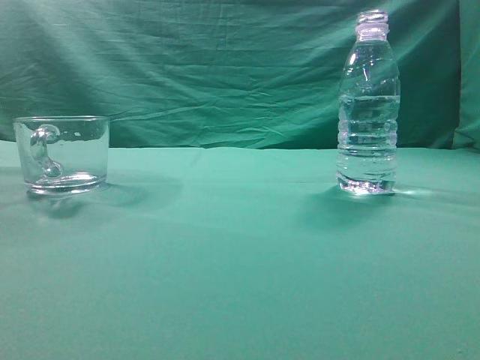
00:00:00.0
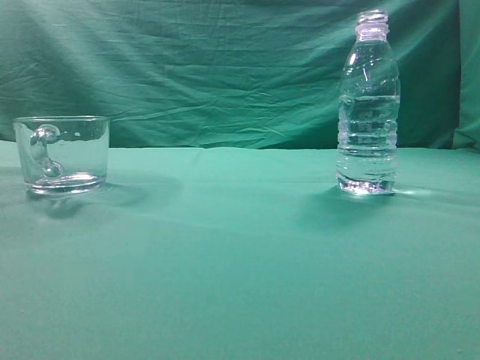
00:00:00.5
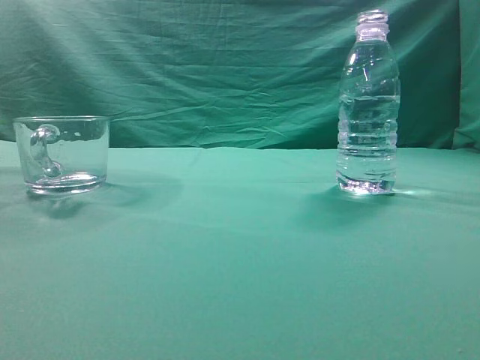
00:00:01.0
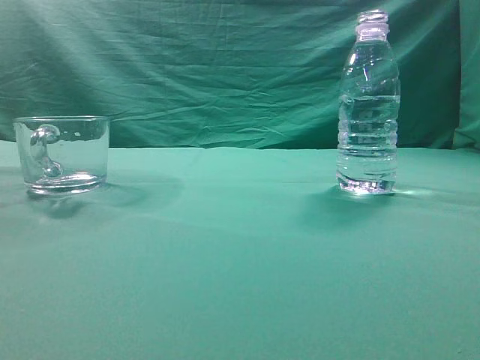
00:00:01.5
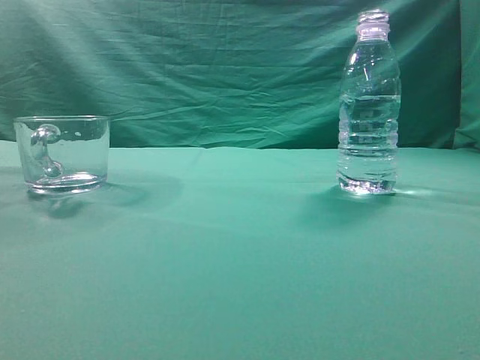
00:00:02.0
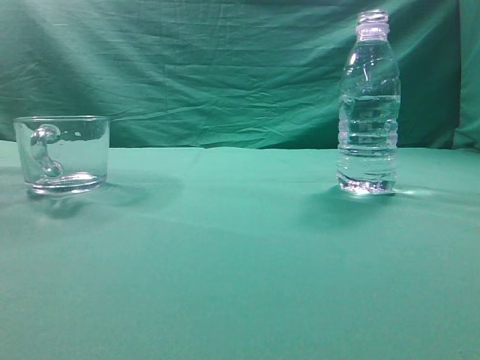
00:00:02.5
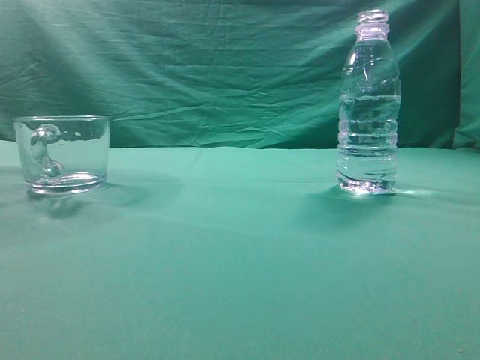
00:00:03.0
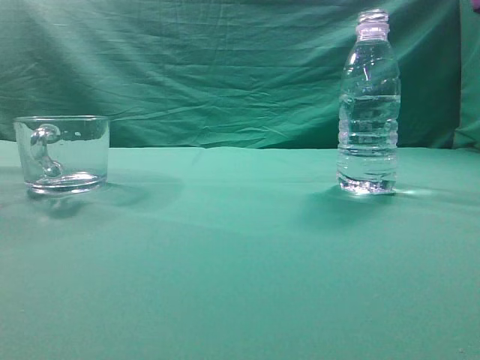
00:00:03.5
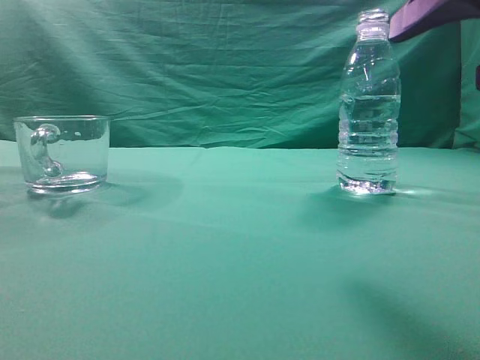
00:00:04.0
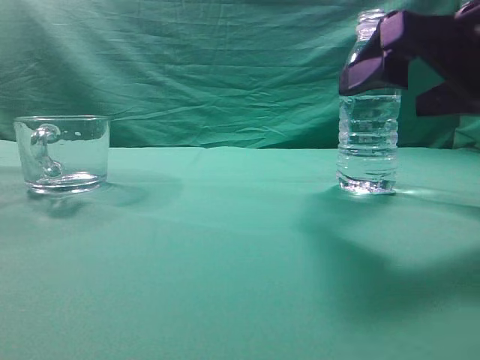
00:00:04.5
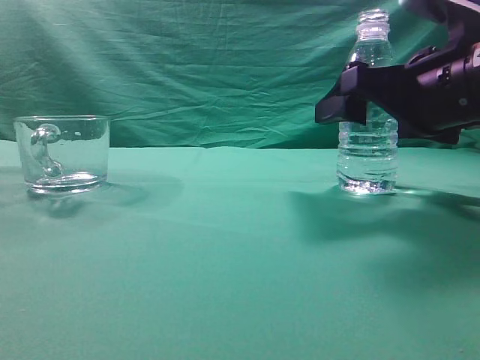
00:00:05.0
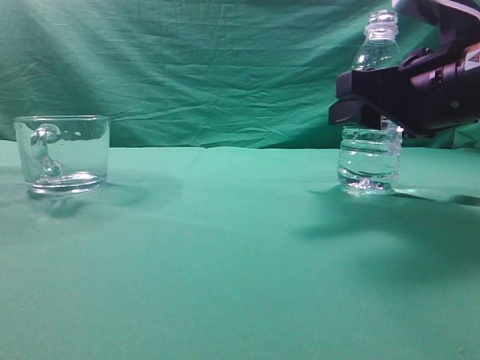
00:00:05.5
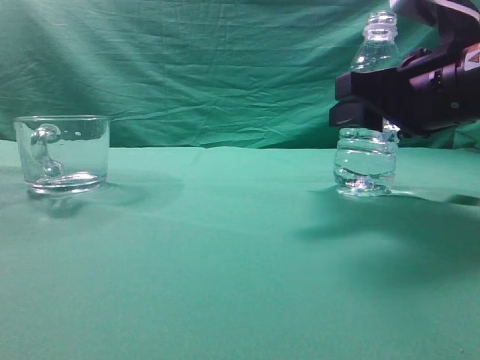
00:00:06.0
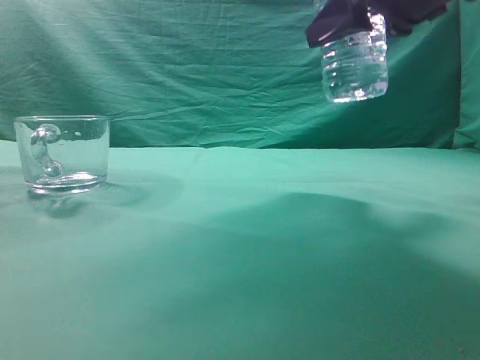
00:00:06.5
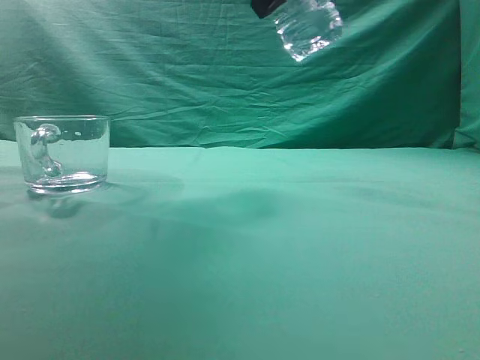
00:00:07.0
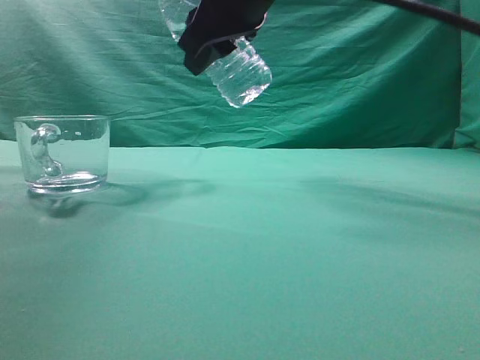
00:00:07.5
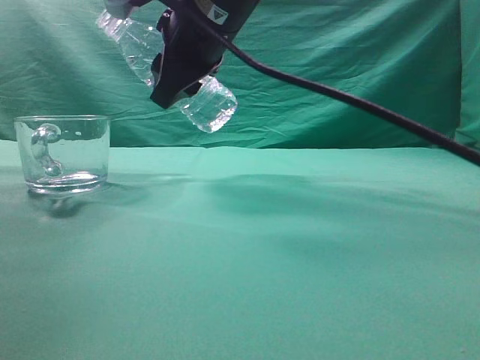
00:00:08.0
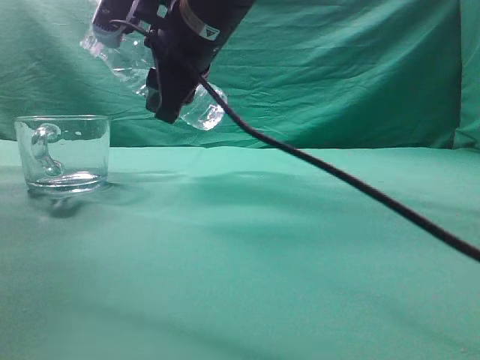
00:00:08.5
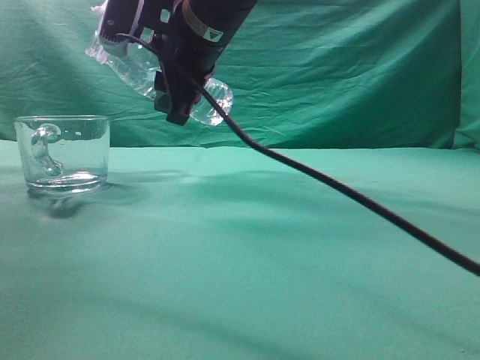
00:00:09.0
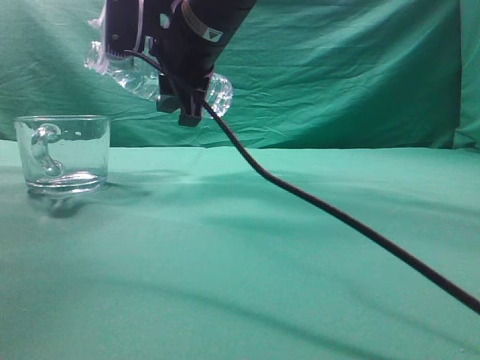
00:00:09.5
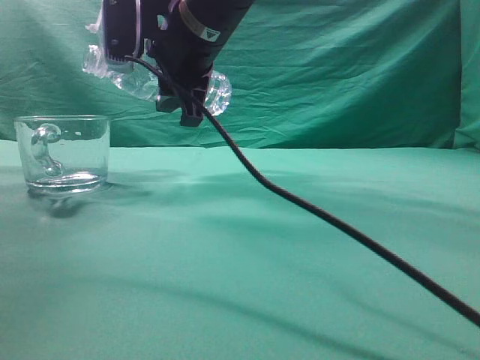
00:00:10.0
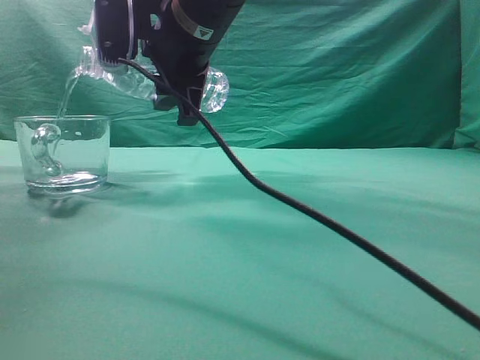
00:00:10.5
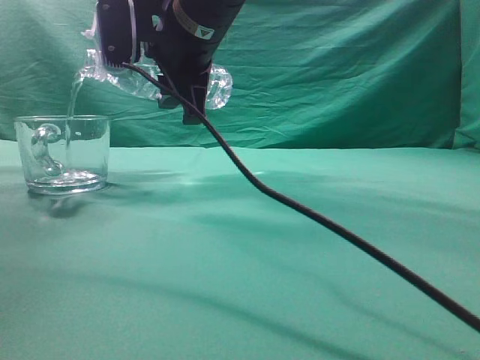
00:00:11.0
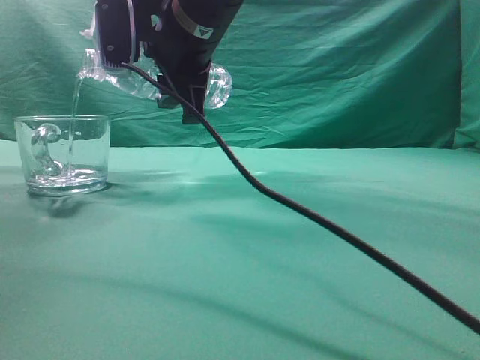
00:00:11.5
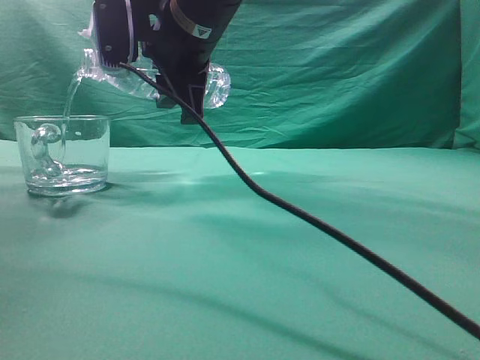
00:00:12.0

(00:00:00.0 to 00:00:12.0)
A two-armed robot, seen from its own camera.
Task of the whole recording: pick up the water bottle and pour the water in it into the glass.
Step, 00:00:00.0 - 00:00:06.0: Grasp the mineral water bottle.
00:00:02.0 - 00:00:04.0: The right gripper shifts about 15 cm forward, to the left and downward, and opens its fingers.
00:00:04.0 - 00:00:06.0: The right gripper heads forward and downward, covering roughly 10 cm, and closes up.
00:00:06.0 - 00:00:08.0: The right gripper goes about 20 cm to the left and upward.
00:00:10.0 - 00:00:12.0: The grippers make only small movements.

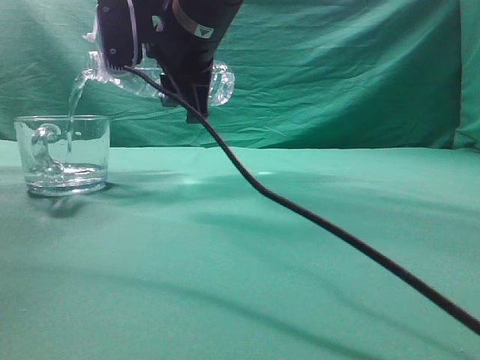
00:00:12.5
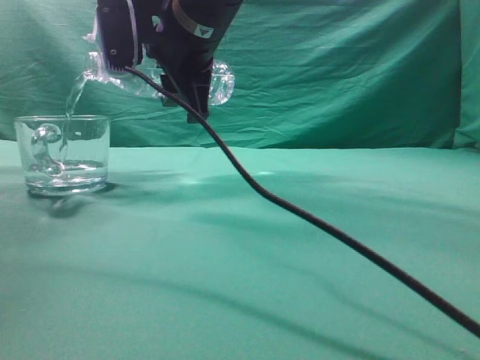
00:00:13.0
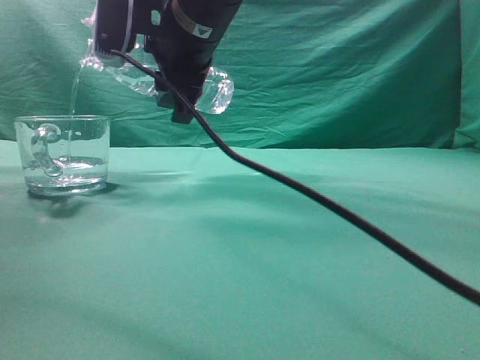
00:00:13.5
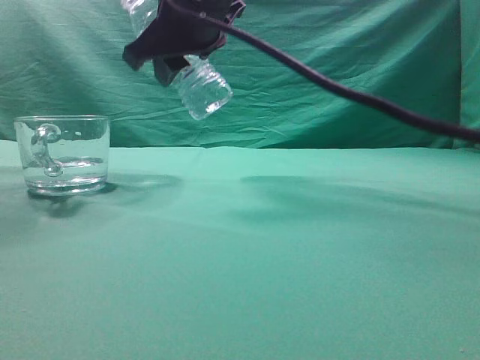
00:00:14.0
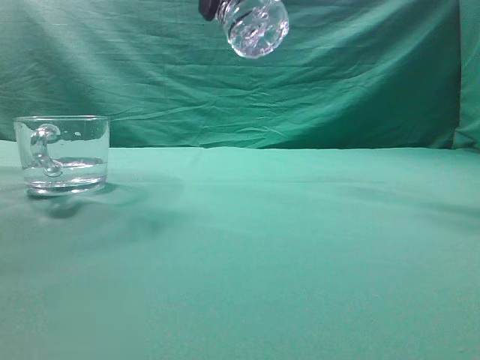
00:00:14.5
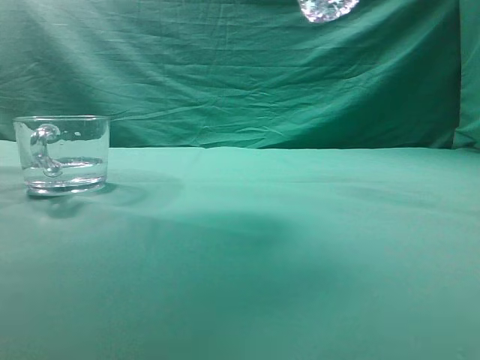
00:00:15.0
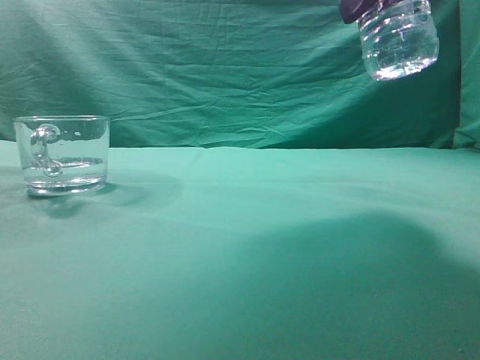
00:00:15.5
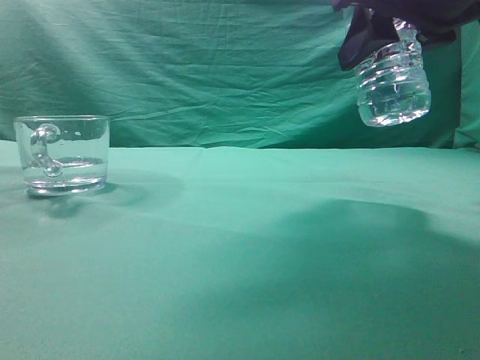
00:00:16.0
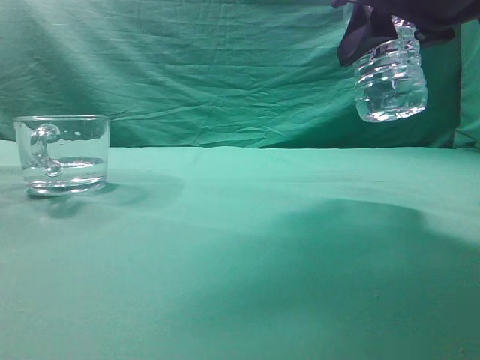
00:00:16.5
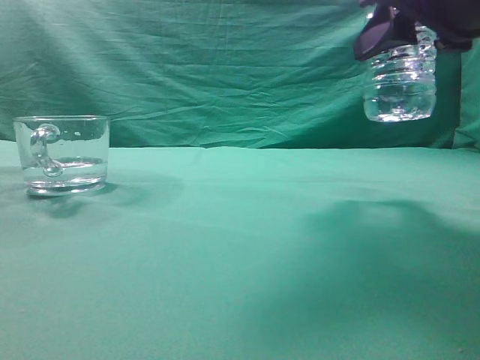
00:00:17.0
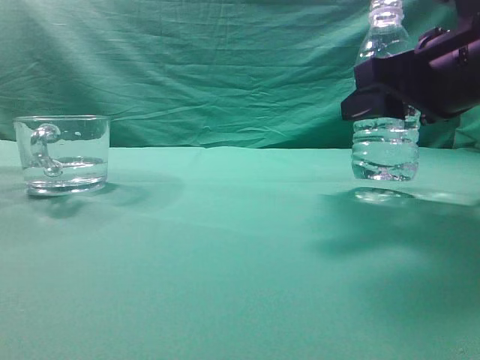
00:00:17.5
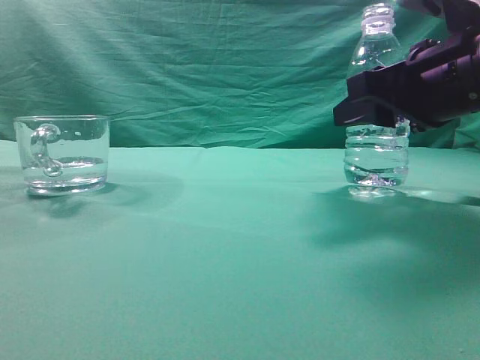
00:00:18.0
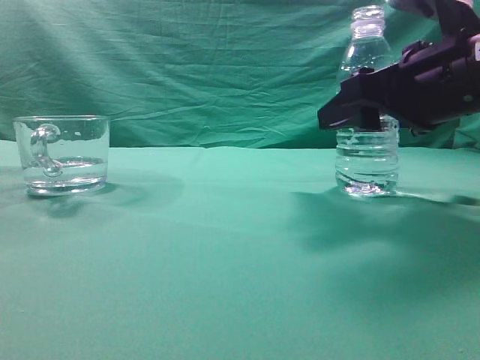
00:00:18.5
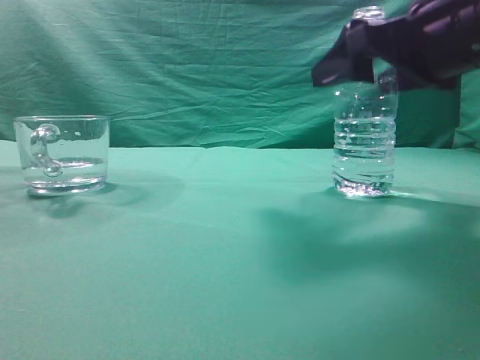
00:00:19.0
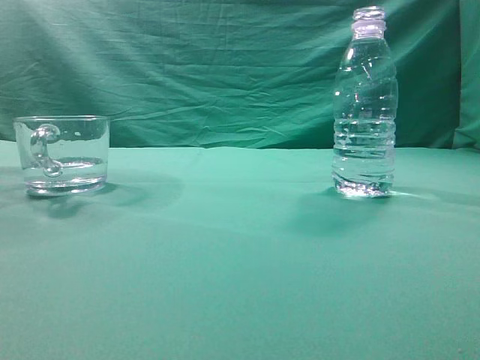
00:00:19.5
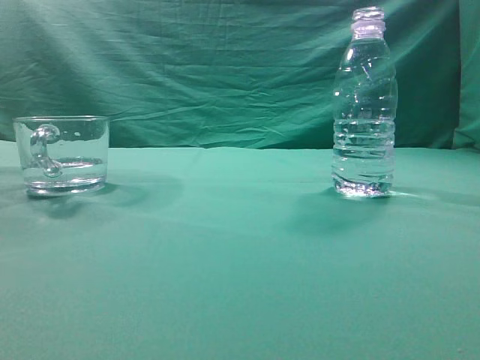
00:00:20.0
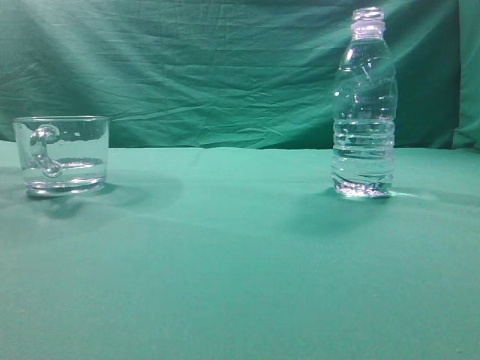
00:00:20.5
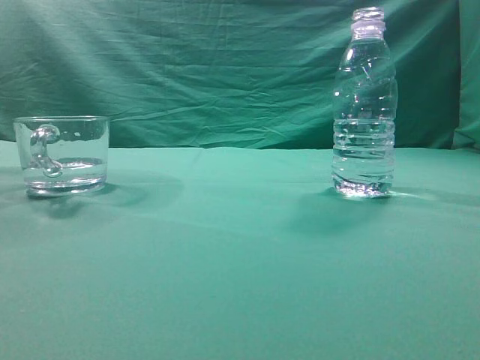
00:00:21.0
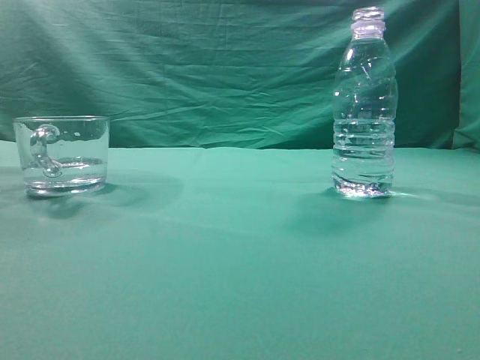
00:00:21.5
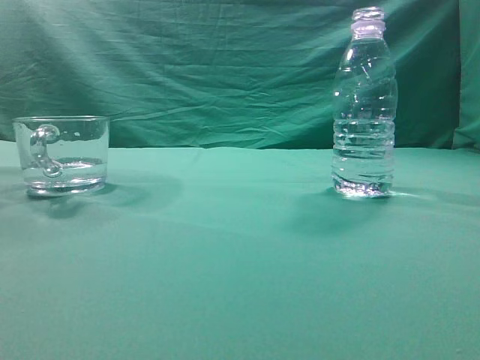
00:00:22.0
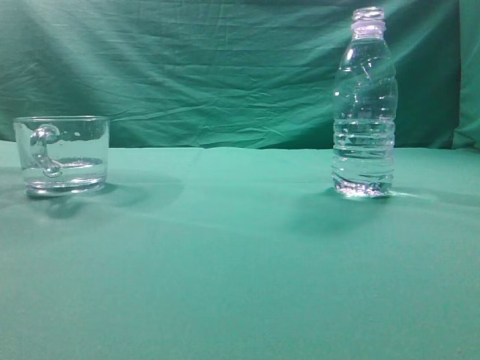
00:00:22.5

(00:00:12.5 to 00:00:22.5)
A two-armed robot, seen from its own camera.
Task of the whole recording: pick up the water bottle and pour the water in it into the glass.
00:00:12.5 - 00:00:14.5: The right gripper moves upward, to the right and backward, roughly 15 cm.
00:00:14.5 - 00:00:16.5: The right gripper heads to the right, downward and backward, covering roughly 15 cm.
00:00:16.5 - 00:00:18.5: The right gripper is displaced downward by approximately 10 cm.
00:00:18.5 - 00:00:20.5: The right gripper goes approximately 35 cm upward and backward, and closes up.
